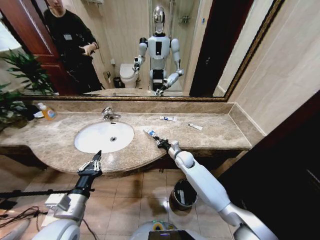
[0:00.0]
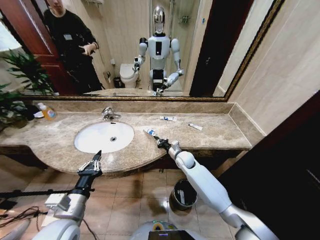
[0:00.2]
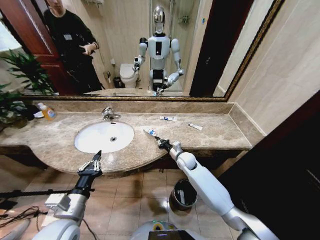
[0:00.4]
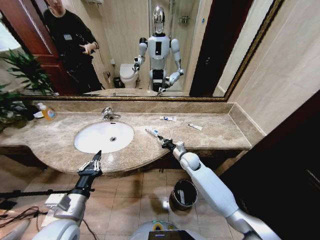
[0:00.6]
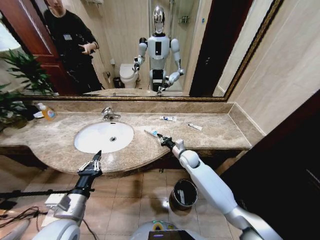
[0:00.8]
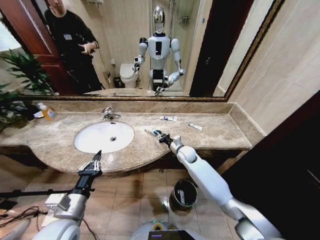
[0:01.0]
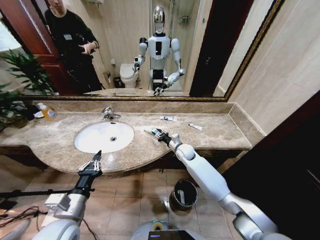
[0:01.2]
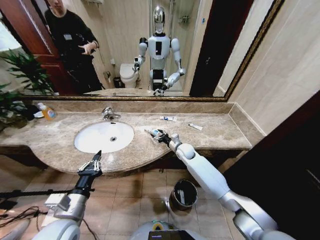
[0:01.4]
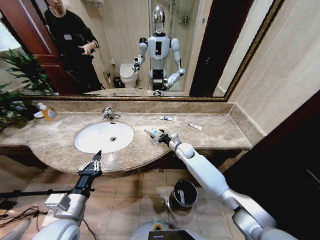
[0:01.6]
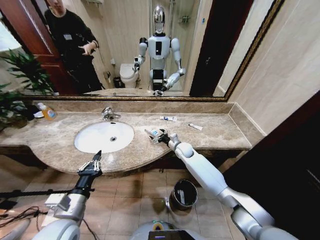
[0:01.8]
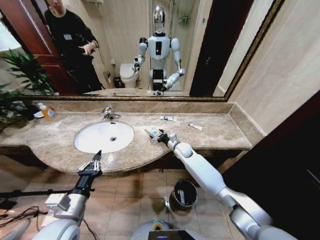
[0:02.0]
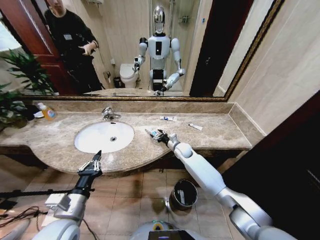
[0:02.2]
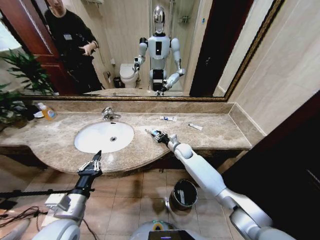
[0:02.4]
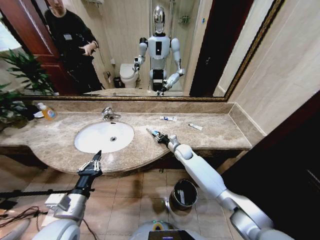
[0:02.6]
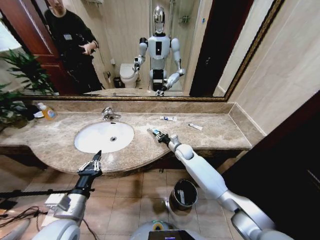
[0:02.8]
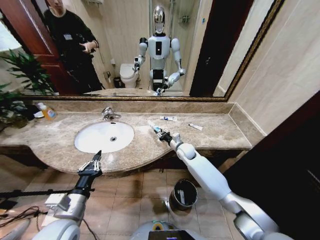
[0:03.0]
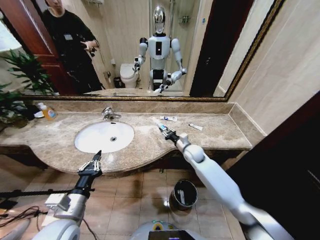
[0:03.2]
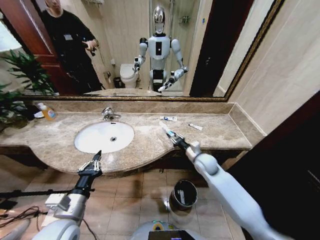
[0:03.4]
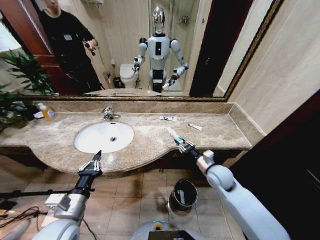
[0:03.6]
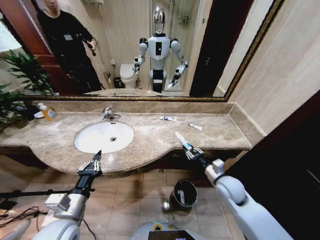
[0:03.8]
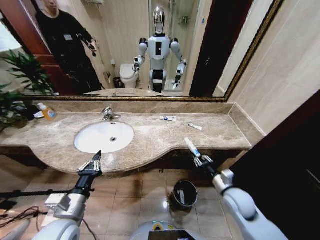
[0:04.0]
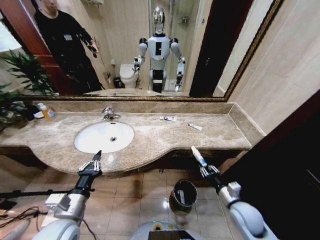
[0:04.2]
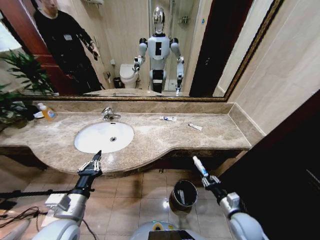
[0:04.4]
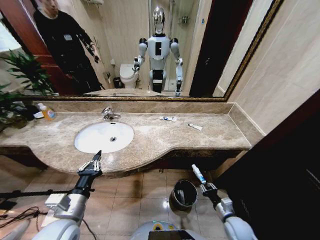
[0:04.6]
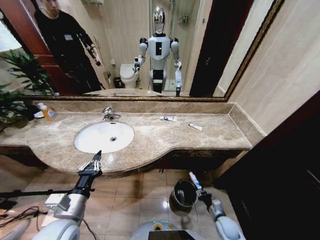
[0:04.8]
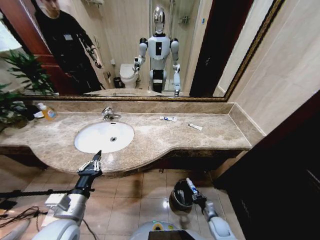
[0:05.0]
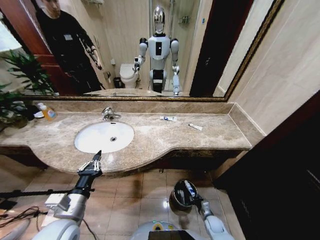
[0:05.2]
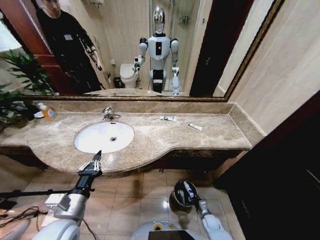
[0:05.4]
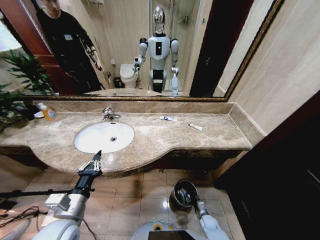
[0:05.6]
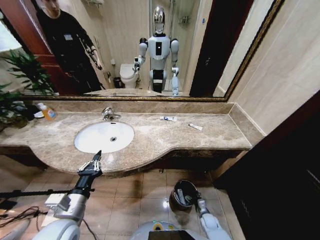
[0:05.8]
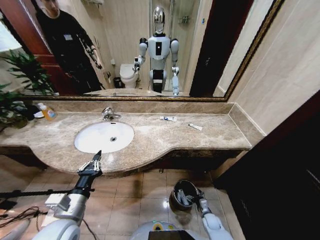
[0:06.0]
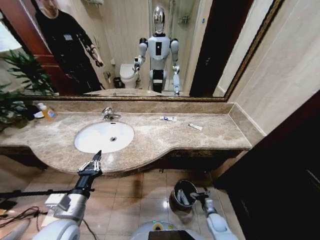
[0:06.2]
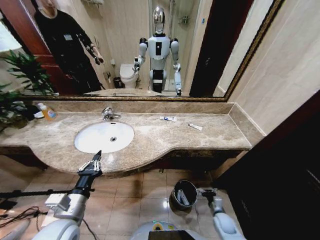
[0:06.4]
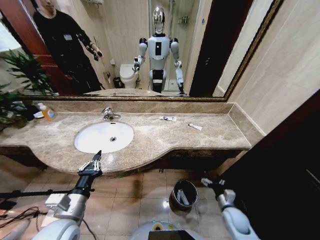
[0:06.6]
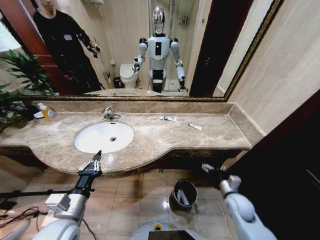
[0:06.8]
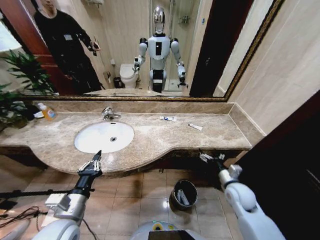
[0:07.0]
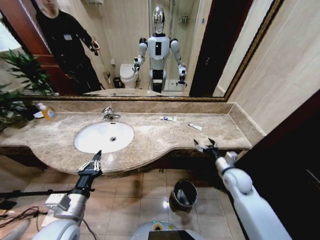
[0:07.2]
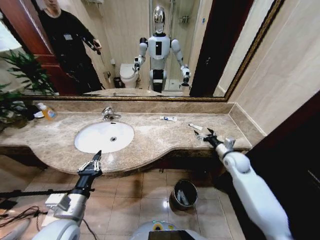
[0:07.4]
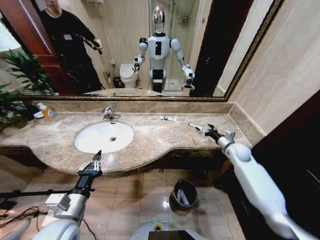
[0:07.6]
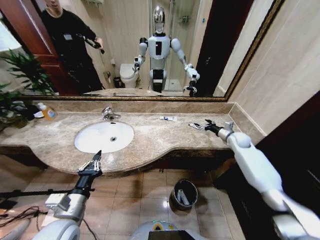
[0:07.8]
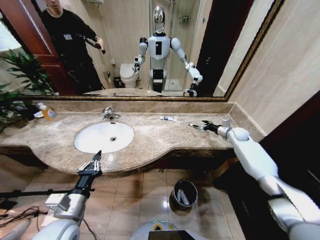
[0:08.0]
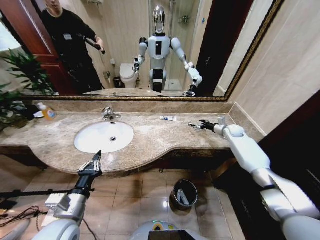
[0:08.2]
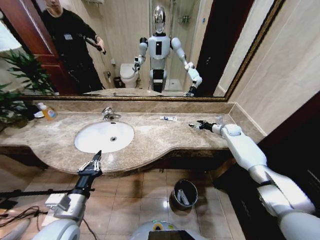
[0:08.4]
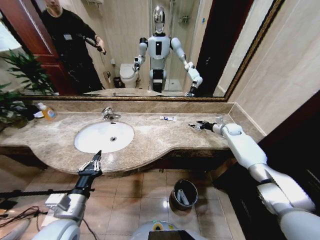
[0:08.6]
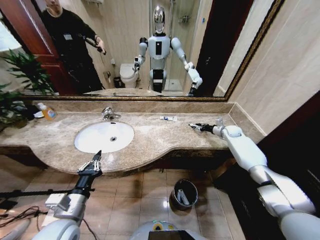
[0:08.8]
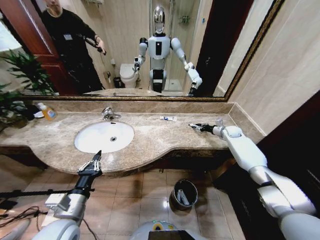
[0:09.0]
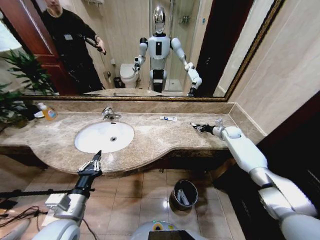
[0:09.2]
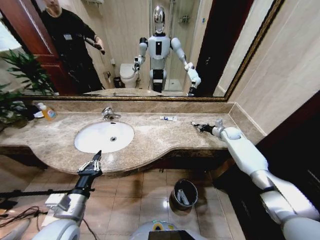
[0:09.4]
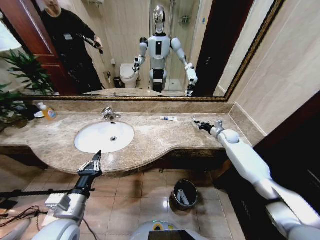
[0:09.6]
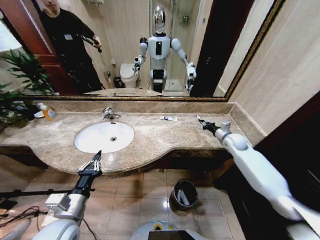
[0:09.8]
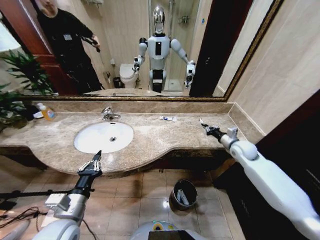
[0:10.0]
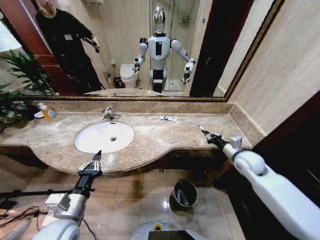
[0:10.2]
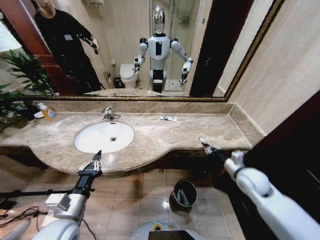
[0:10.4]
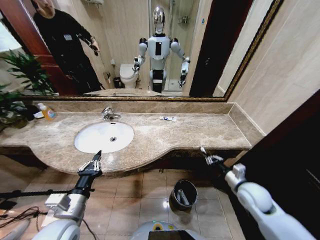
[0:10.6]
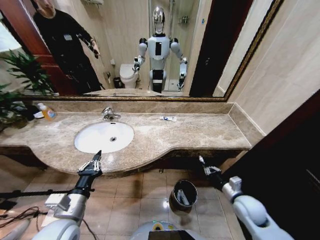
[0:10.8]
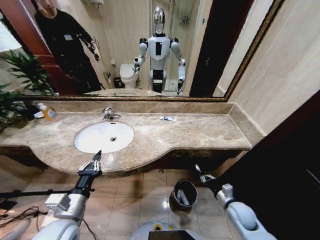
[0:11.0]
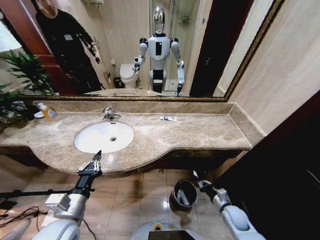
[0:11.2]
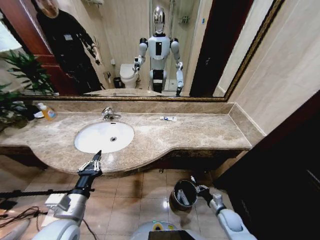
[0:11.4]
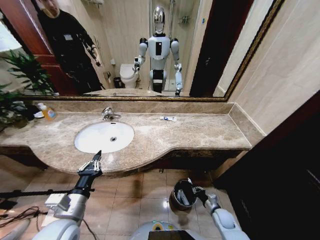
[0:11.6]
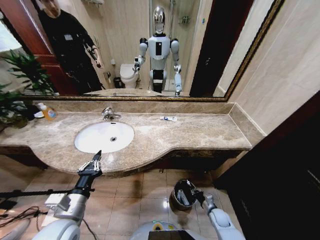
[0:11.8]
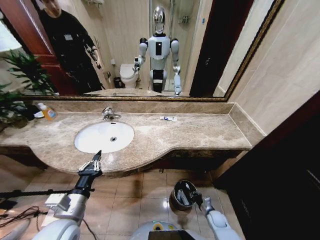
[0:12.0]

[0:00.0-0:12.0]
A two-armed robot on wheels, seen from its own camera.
Task of the whole recording: Pick up the trash from the sink and place it in the trash bin.
0:00.0 to 0:01.6: The right gripper opens.
0:01.6 to 0:03.0: The right gripper closes.
0:03.0 to 0:04.4: The right gripper is displaced backward and to the right by approximately 35 cm.
0:04.4 to 0:06.0: The right gripper heads downward, covering some 25 cm, and opens.
0:06.0 to 0:07.6: The right gripper moves upward and forward, about 40 cm.
0:07.6 to 0:09.0: The right gripper moves forward, about 15 cm, and closes.
0:09.0 to 0:10.4: The right gripper goes roughly 30 cm backward, and closes its fingers.
0:10.4 to 0:12.0: The right gripper goes approximately 35 cm downward.

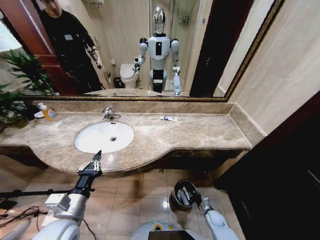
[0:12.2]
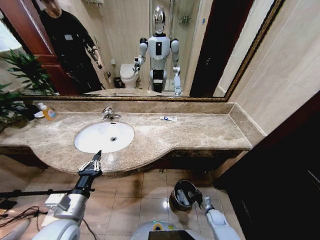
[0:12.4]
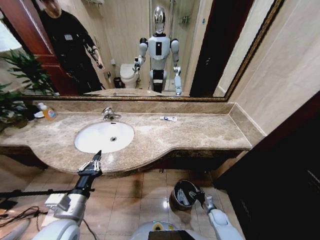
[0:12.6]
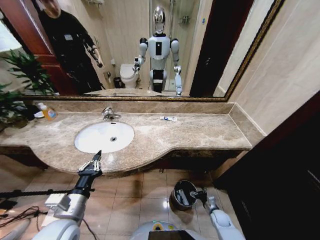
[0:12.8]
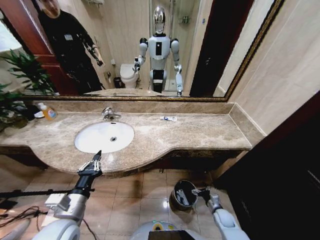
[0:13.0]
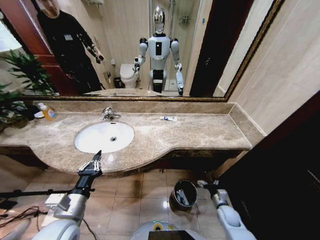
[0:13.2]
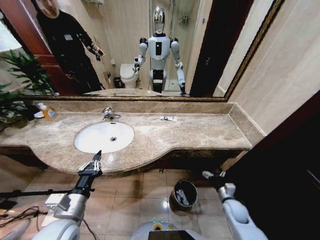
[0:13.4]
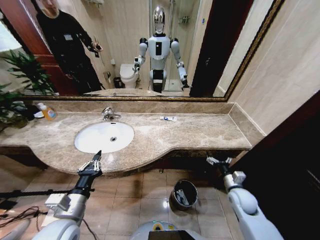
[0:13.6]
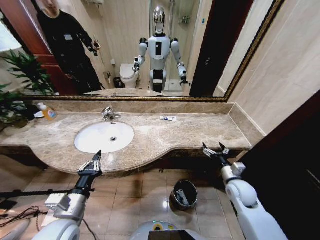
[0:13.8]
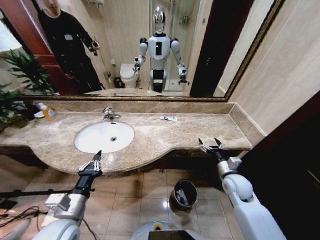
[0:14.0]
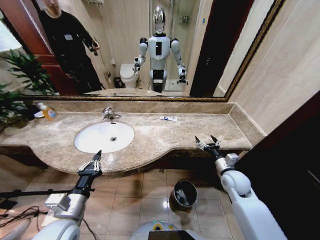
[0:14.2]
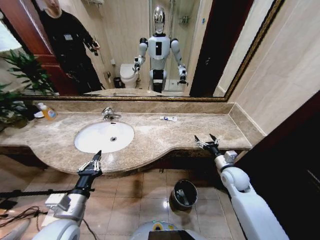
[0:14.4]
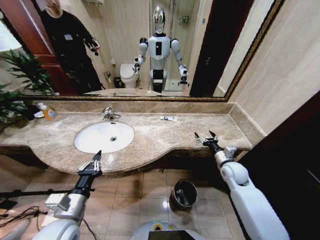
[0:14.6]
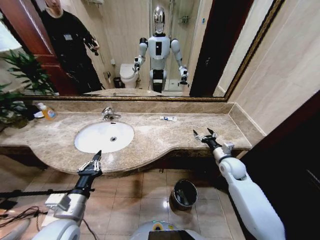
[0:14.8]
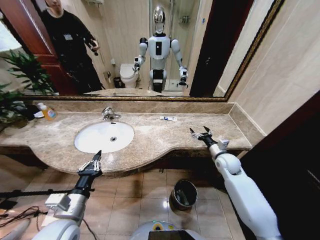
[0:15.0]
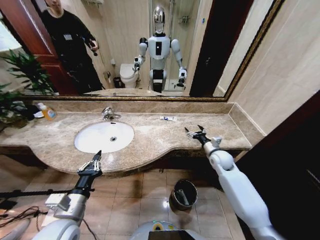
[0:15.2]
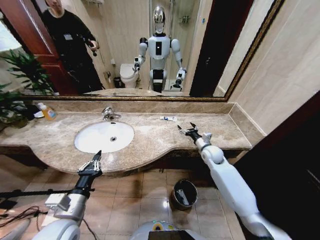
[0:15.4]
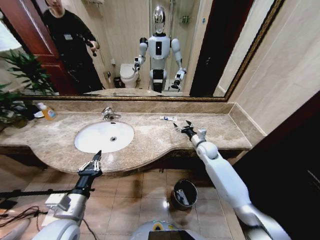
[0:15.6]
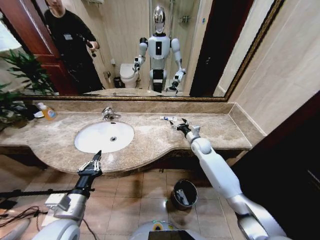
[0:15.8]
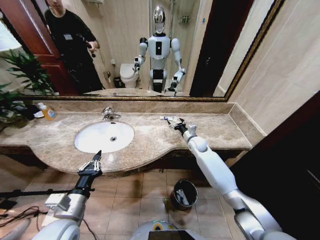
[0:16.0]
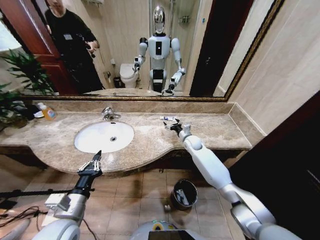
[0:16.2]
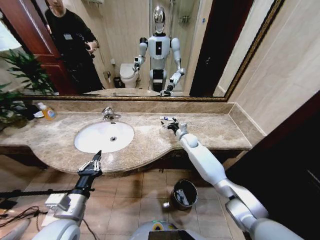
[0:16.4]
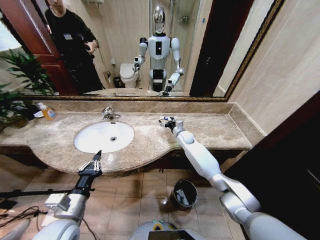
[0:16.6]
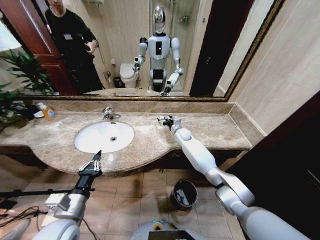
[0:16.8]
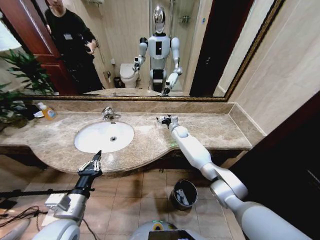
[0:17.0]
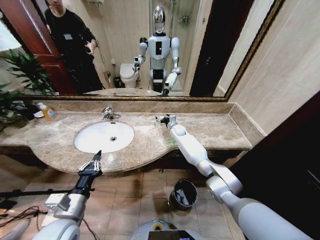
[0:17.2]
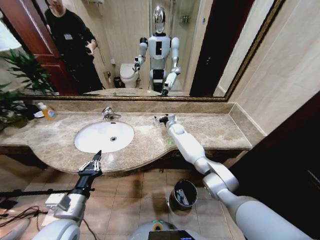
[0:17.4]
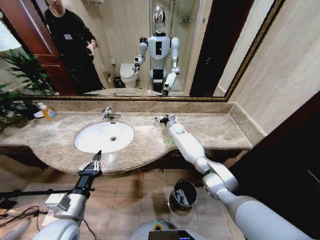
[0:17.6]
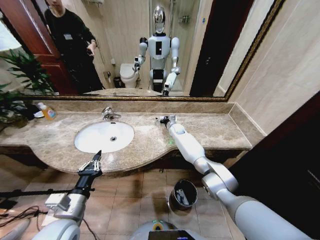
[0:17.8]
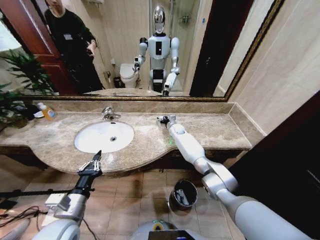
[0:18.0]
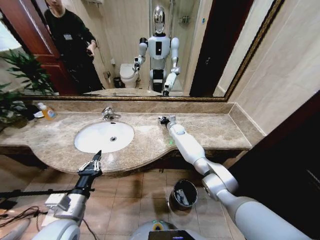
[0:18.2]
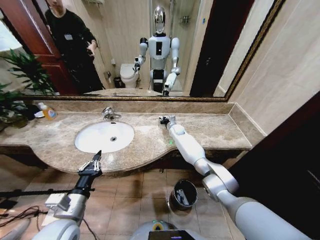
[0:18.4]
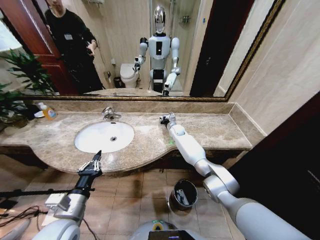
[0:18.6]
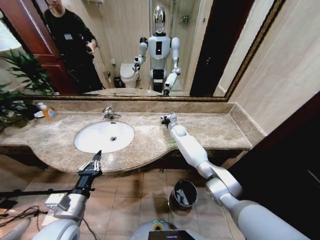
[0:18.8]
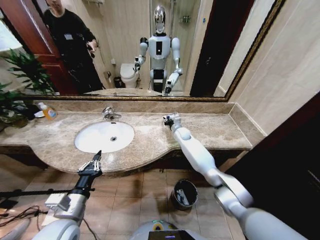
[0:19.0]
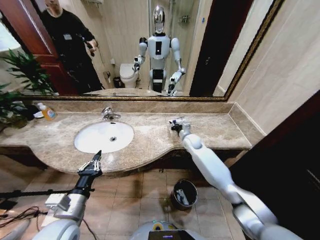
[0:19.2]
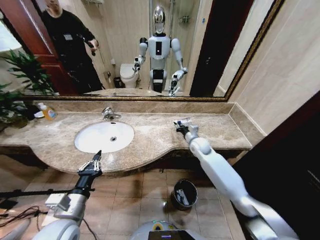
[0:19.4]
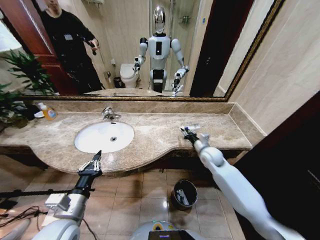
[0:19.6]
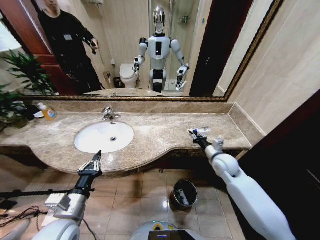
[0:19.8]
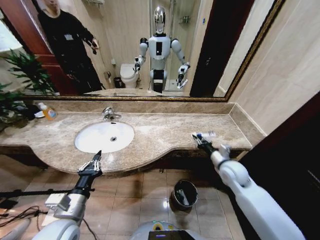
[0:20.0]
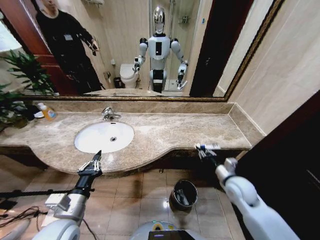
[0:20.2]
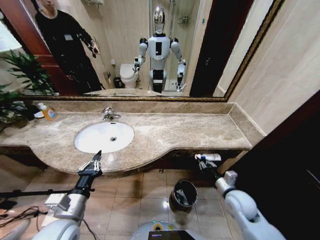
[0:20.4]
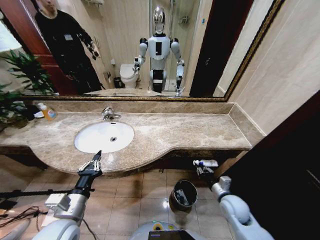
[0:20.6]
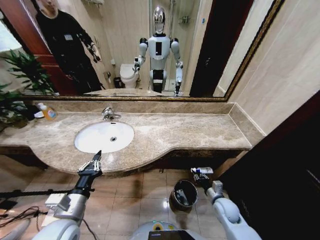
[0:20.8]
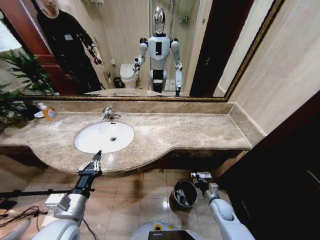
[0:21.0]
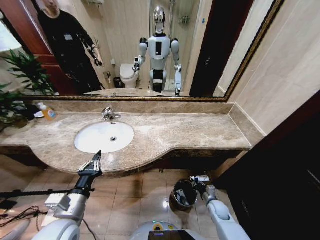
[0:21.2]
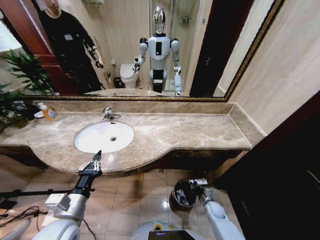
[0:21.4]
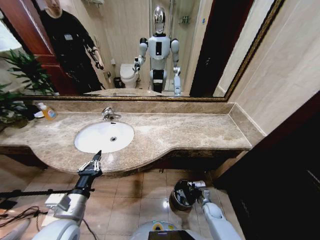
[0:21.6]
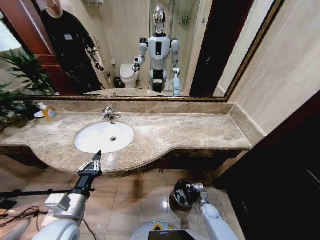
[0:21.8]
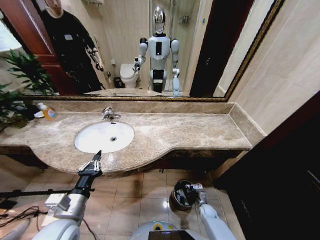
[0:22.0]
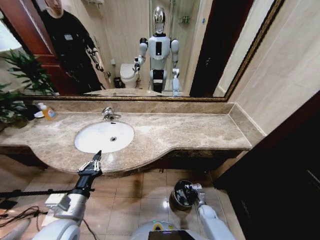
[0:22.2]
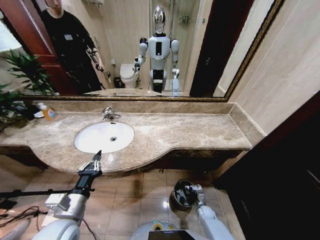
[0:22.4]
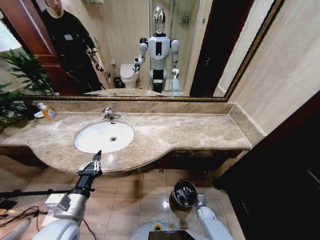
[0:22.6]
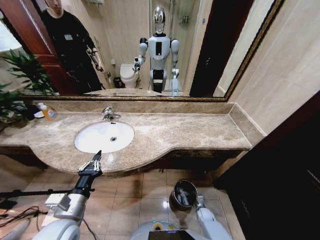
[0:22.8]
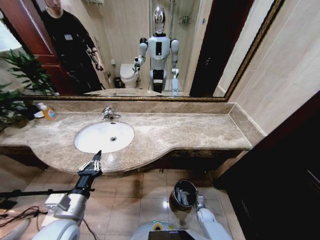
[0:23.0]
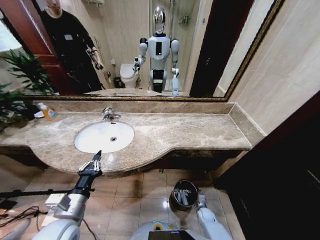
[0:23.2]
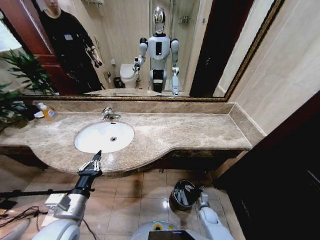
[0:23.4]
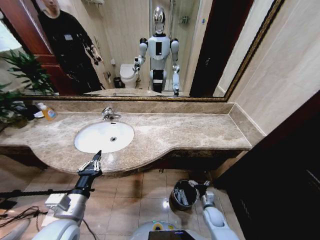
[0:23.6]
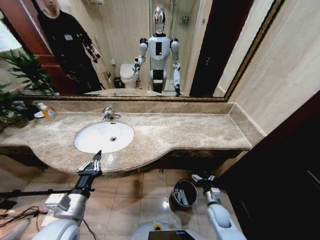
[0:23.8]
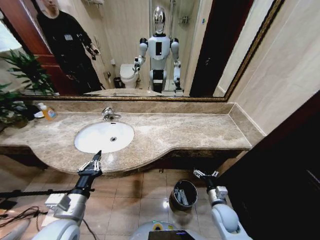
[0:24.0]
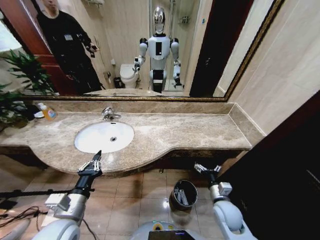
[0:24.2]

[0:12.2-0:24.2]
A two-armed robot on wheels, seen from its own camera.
Task of the whole recording: Pick up the trash from the sink and place it in the trash bin.
0:12.2 to 0:13.8: The right gripper heads upward, covering some 30 cm, and opens its fingers.
0:13.8 to 0:15.2: The right gripper travels forward by some 15 cm.
0:15.2 to 0:16.6: The right gripper is displaced forward and to the left by roughly 20 cm.
0:16.6 to 0:18.2: The right gripper goes about 5 cm forward, and closes its fingers.
0:18.2 to 0:19.8: The right gripper is displaced backward and to the right by approximately 30 cm.
0:19.8 to 0:21.2: The right gripper shifts approximately 30 cm downward and backward.
0:21.2 to 0:22.6: The right gripper moves downward, roughly 10 cm.
0:22.6 to 0:24.2: The right gripper travels upward by about 30 cm, and opens its fingers.
